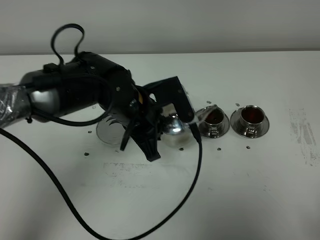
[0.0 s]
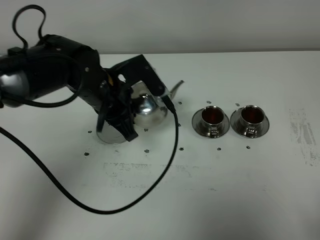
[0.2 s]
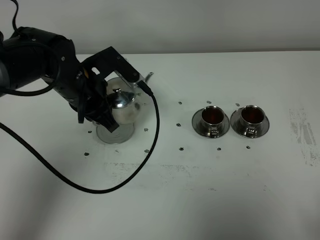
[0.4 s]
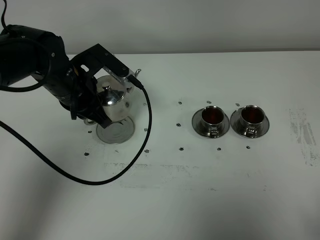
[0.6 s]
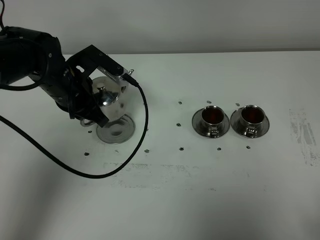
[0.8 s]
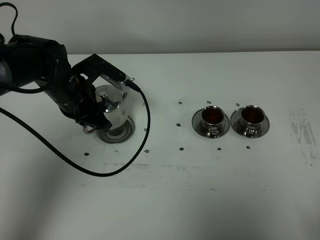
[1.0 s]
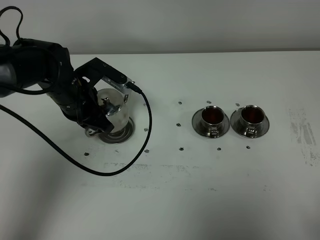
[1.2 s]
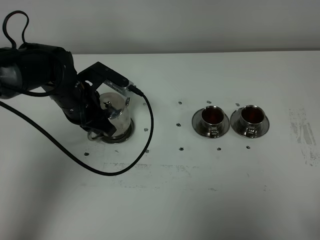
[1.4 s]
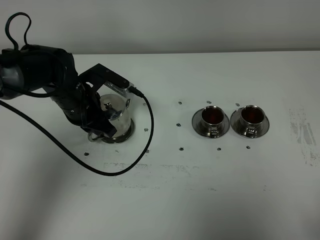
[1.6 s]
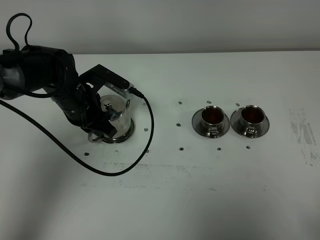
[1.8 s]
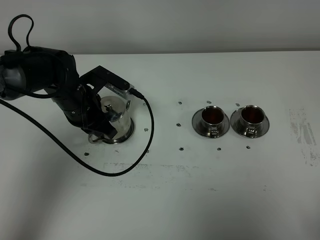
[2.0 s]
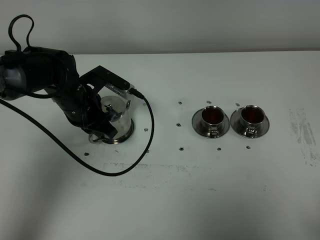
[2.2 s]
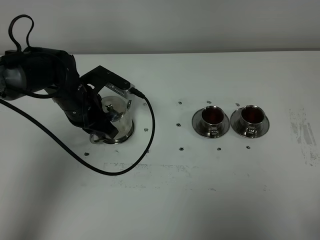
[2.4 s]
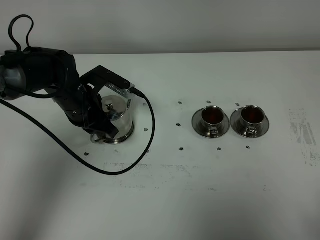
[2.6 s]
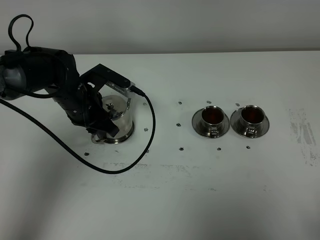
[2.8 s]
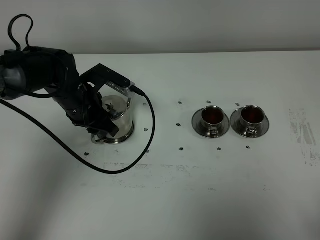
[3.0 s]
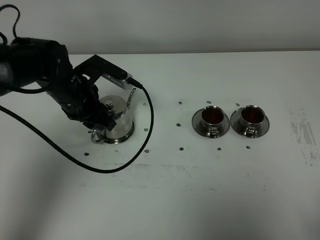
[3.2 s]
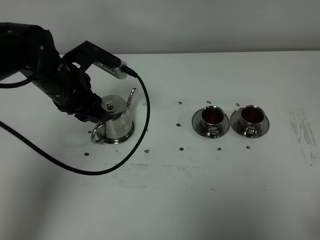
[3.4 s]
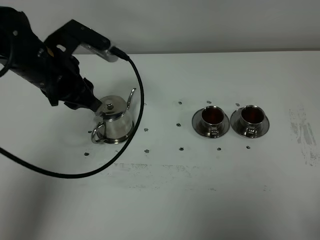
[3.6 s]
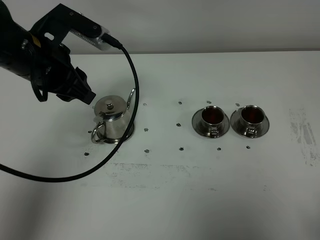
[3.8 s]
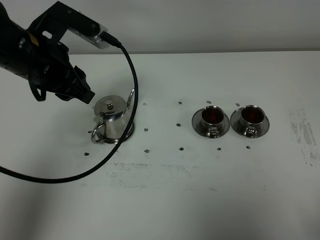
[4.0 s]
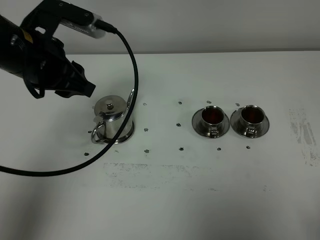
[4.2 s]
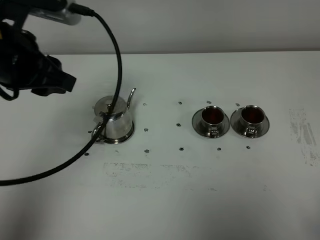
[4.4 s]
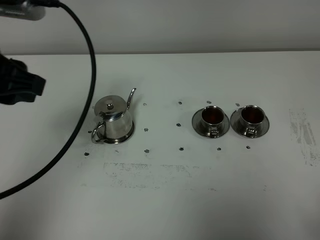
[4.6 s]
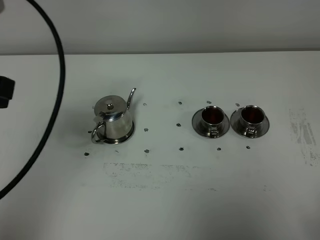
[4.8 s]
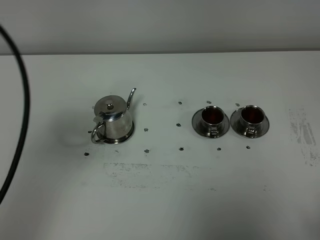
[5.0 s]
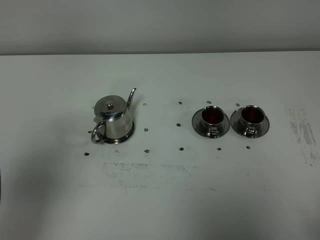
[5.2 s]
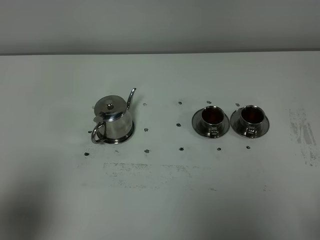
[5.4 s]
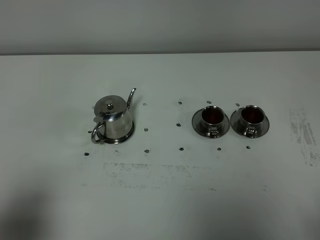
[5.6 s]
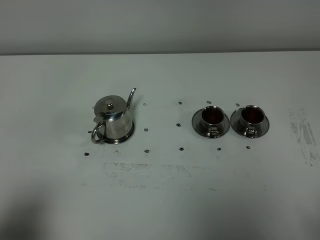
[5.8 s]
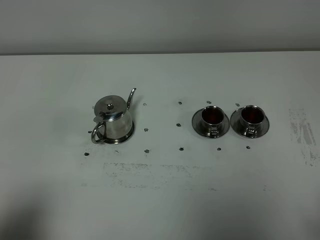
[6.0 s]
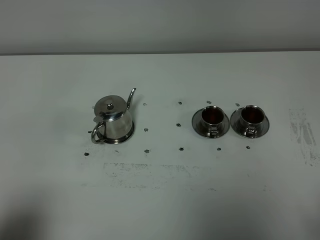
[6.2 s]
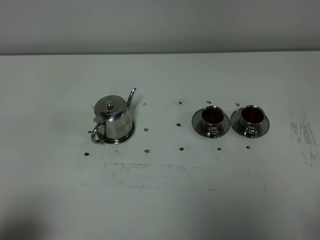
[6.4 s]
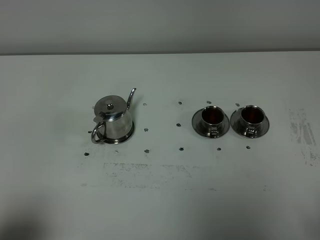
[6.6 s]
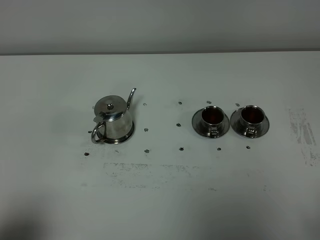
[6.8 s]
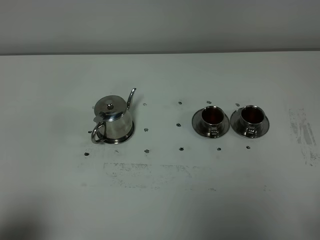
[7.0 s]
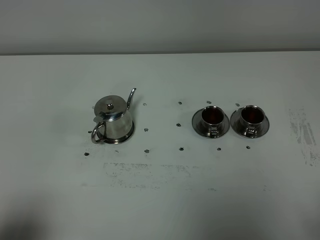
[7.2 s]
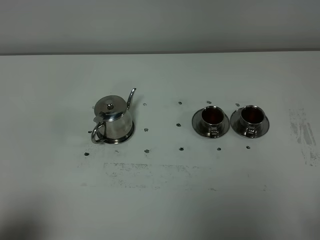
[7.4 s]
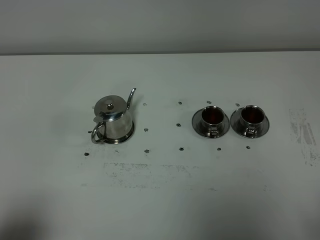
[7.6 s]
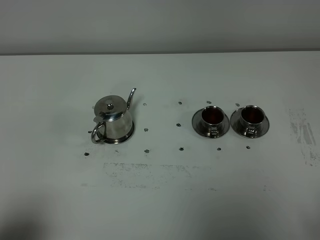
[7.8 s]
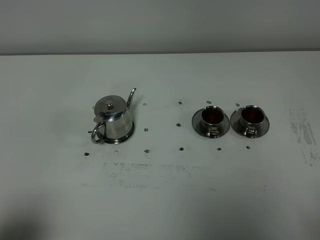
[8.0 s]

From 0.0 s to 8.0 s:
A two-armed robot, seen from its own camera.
Task of the whole recording: grasp the stainless steel teapot and pour the tea into the two stainless steel teacups one by one, put the stainless steel teapot back in its original place.
From 0.0 s to 1.6 s: The left gripper moves to the left and forward, some 10 cm.
From 1.6 s to 3.2 s: The left gripper opens.
From 3.2 s to 4.8 s: The left gripper shifts approximately 30 cm upward and backward.
From 4.8 s to 6.4 s: The left gripper moves backward and downward, some 25 cm.
From 6.4 s to 8.0 s: The two grippers keep their place.

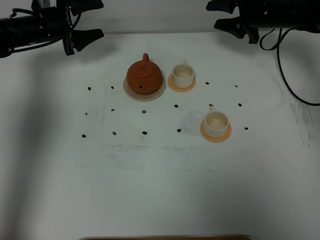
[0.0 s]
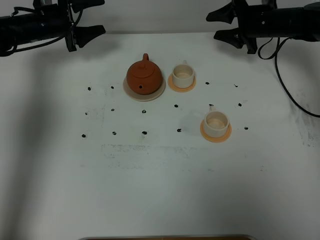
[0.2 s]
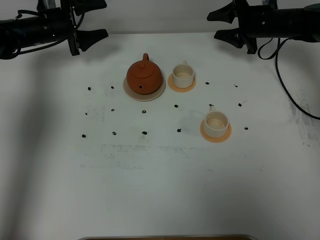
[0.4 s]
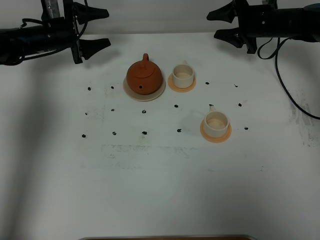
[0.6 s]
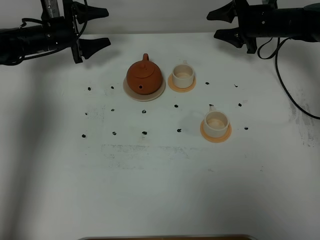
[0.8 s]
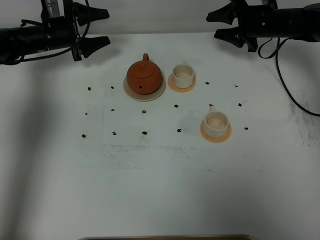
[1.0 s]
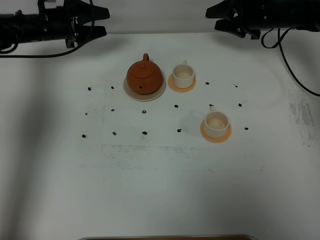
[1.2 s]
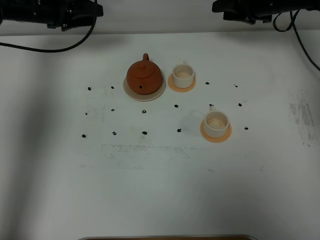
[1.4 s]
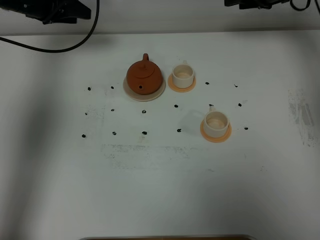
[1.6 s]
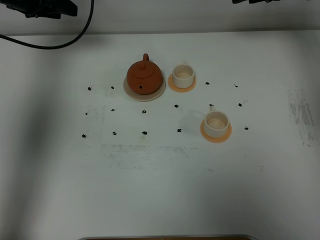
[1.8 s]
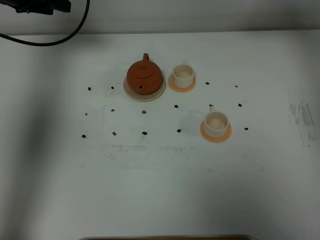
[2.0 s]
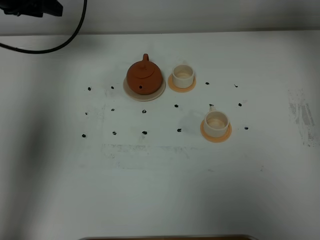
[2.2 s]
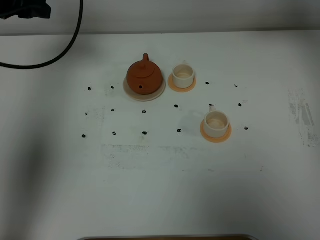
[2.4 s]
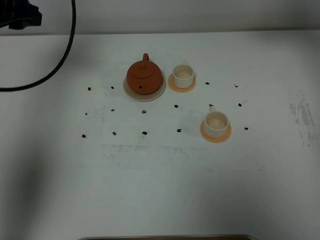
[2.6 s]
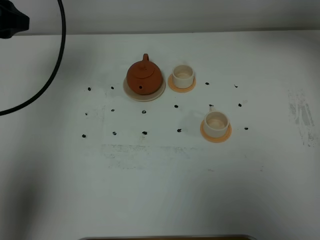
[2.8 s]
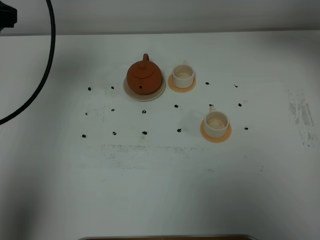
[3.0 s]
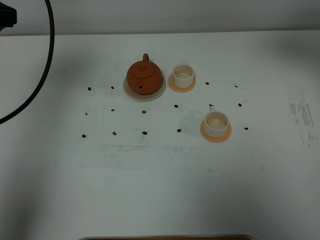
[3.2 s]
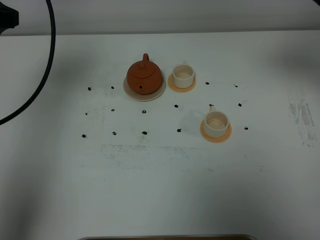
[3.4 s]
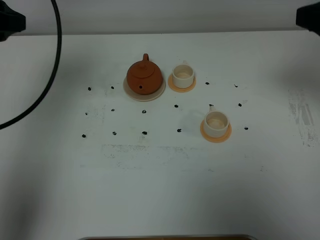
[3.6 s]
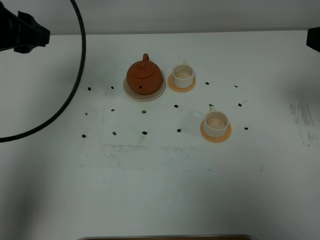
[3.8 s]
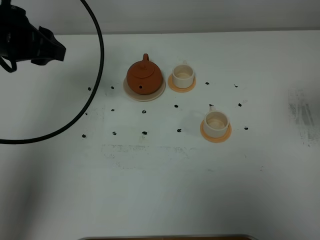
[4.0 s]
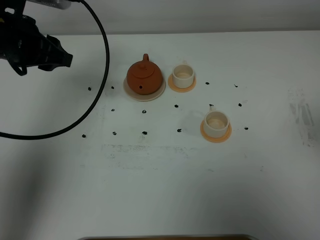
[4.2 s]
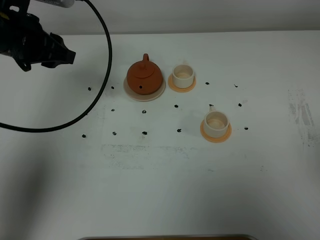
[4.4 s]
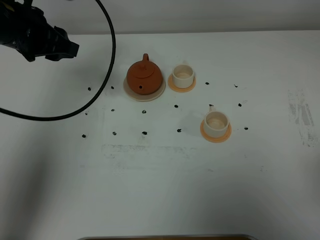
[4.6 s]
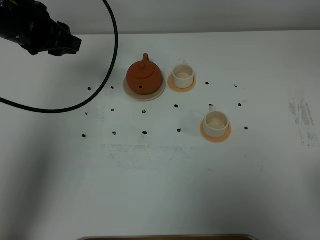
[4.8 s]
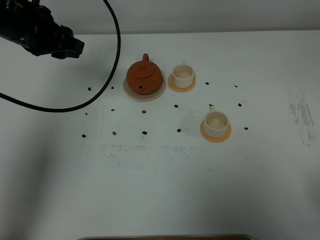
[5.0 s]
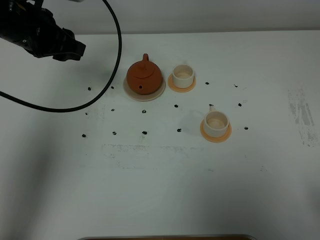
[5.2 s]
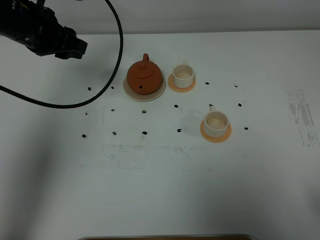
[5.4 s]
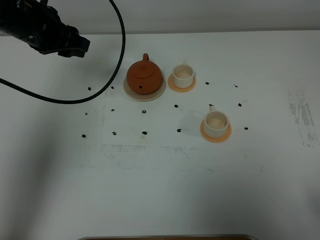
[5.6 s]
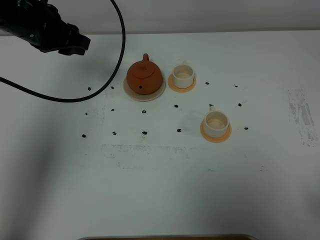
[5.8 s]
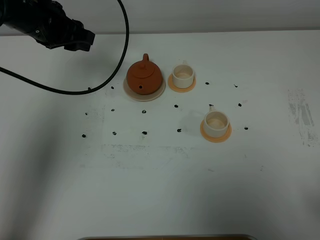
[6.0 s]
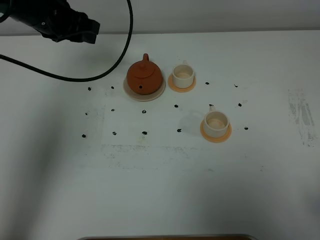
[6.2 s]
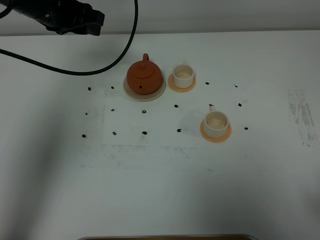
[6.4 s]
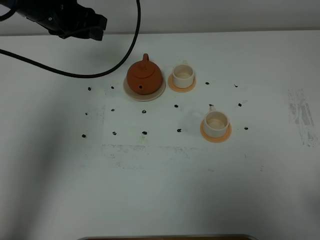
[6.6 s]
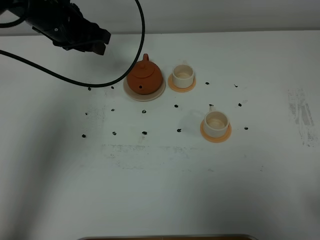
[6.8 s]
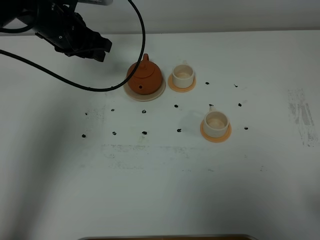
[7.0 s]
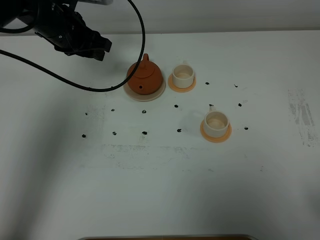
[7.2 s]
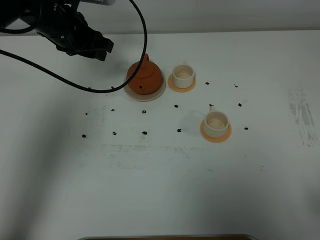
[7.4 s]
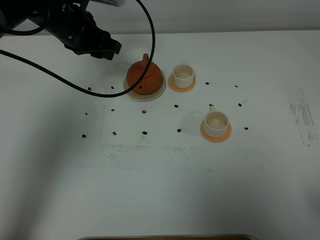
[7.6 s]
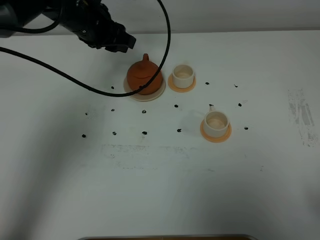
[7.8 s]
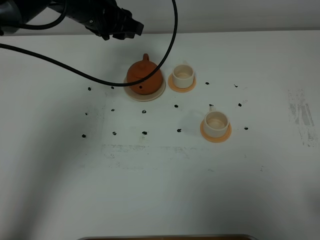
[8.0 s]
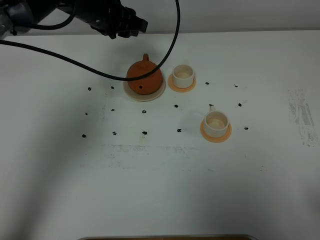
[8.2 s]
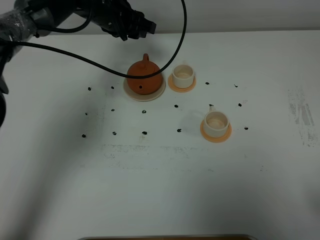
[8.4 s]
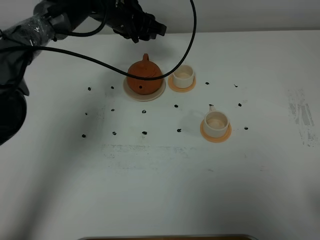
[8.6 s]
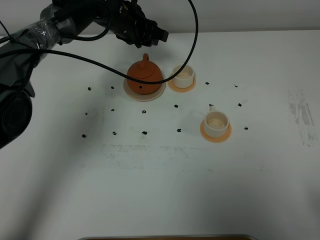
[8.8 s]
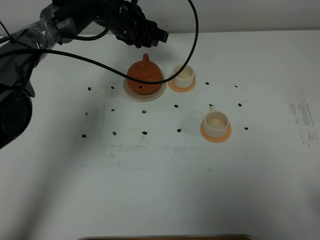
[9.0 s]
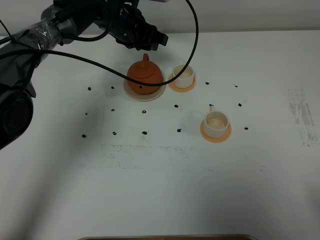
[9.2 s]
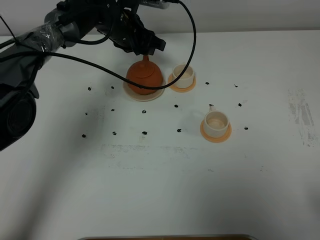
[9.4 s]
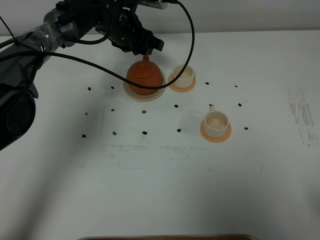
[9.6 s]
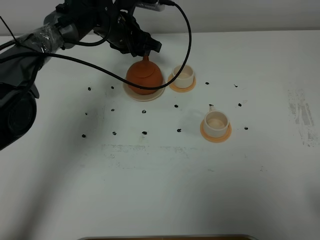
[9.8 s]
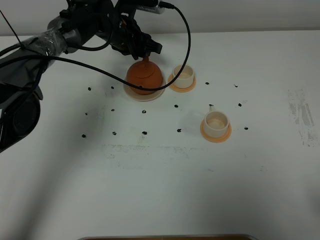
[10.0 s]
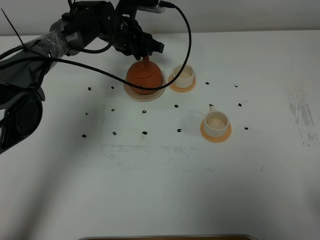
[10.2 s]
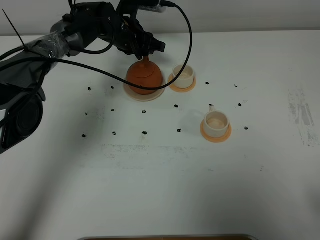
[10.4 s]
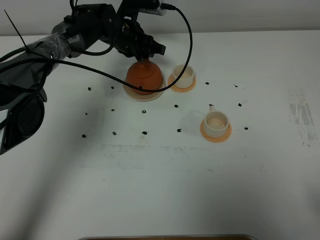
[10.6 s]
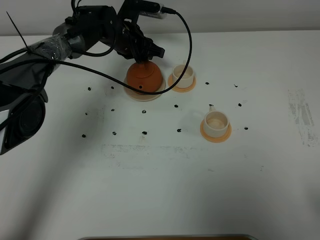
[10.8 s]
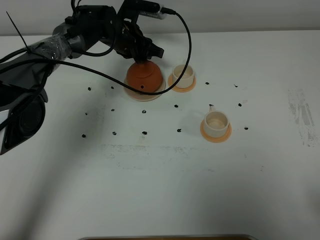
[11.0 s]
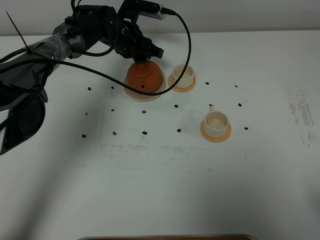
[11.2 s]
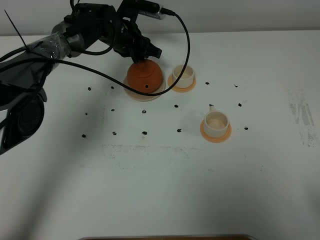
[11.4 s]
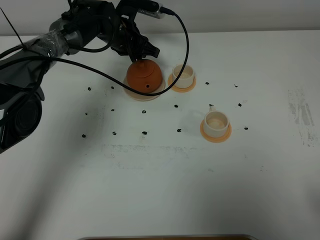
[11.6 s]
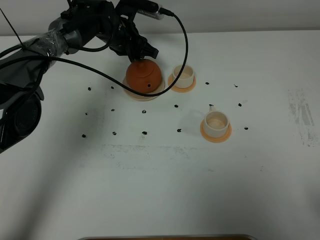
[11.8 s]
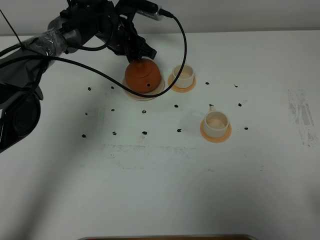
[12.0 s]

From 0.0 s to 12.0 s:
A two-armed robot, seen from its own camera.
Task of the whole recording: grasp the brown teapot and pour the tea into the two white teacups one by one, put the brown teapot back in its original place.
From 0.0 s to 1.6 s: Both grippers travel together upward, roughly 10 cm.
From 1.6 s to 3.0 s: Both grippers travel together backward and upward, approximately 25 cm.
From 3.0 s to 4.4 s: The right gripper travels backward by some 30 cm. Meanwhile the left gripper heads downward, to the right and forward, covering some 10 cm.
From 4.4 s to 6.0 s: The left gripper goes about 5 cm forward. The right gripper moves downward and backward, some 10 cm.
From 6.0 s to 7.6 s: The left gripper changes place by approximately 5 cm.
From 7.6 s to 9.0 s: The left gripper shifts roughly 10 cm to the right and forward.
From 9.0 s to 10.4 s: The left gripper changes place by approximately 5 cm.
From 10.4 s to 12.0 s: The grippers stay close to where they were, moving slightly.

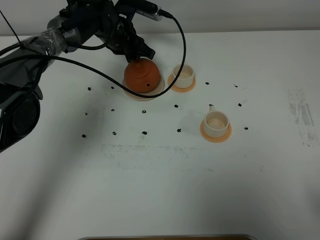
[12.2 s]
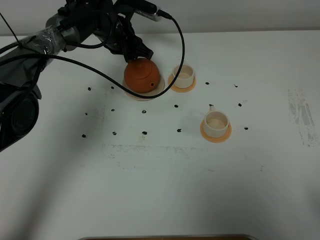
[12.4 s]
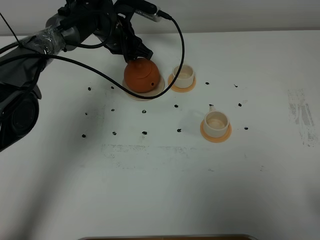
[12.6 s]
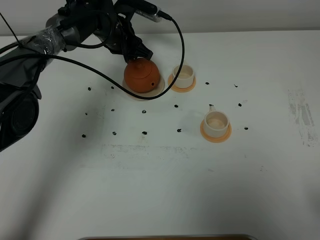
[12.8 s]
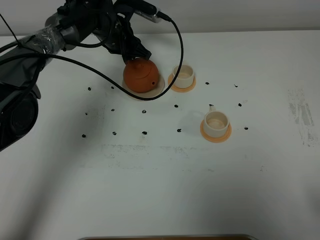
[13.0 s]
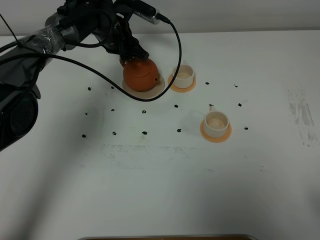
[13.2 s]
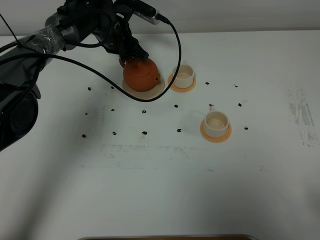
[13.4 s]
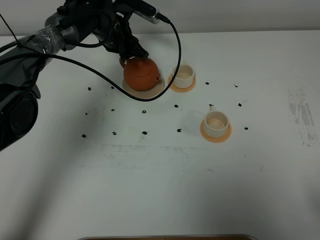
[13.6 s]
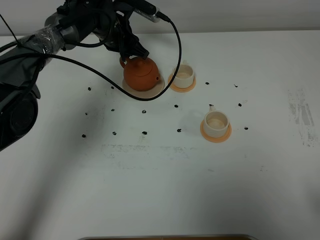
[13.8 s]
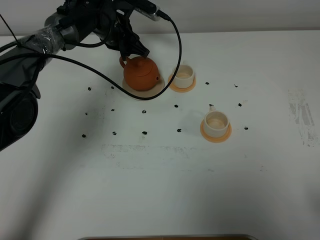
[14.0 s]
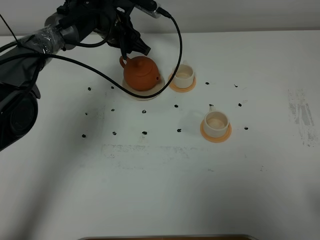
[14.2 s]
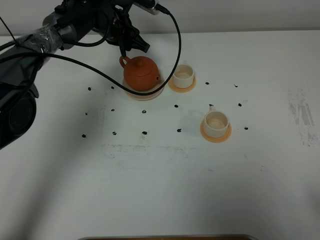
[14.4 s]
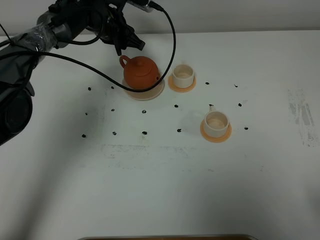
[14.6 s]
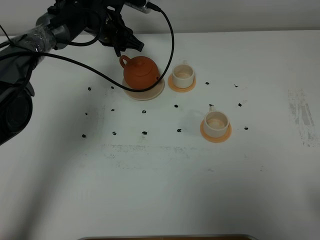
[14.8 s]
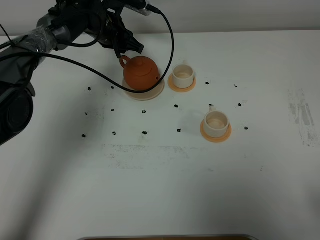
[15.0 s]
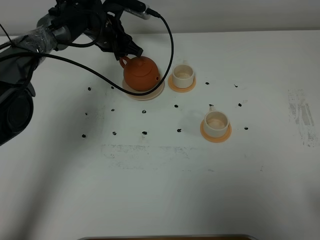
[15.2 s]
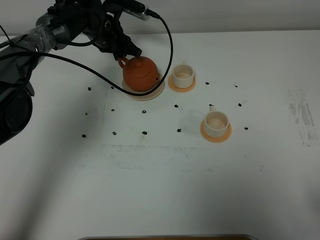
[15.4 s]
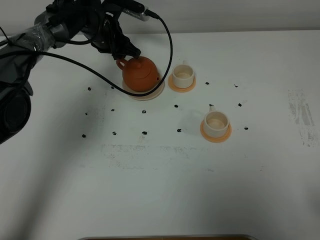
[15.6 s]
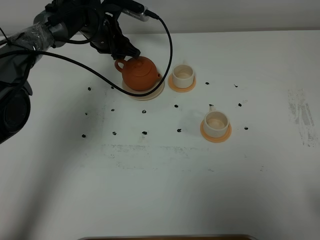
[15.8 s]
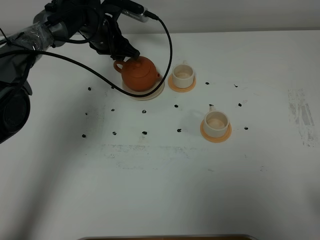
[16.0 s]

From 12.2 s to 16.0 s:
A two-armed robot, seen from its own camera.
Task of the whole recording: grasp the brown teapot and pour the tea into the two white teacups one by one, put the brown teapot back in its original place.
From 12.2 s to 16.0 s: The grippers move only a little.
